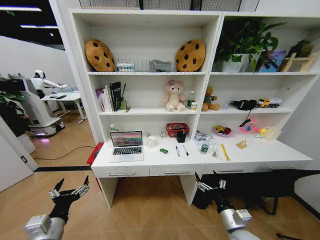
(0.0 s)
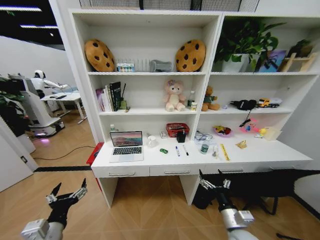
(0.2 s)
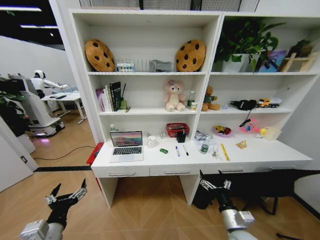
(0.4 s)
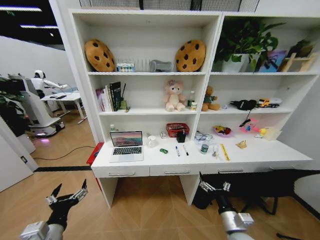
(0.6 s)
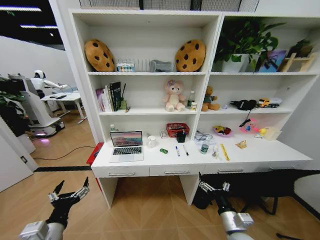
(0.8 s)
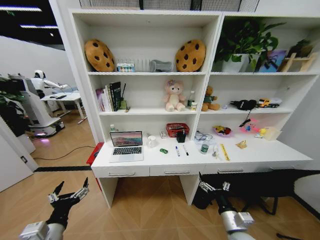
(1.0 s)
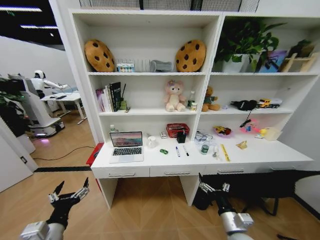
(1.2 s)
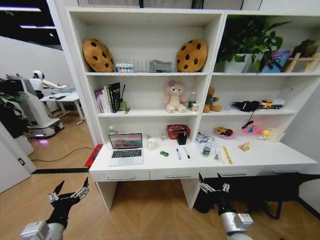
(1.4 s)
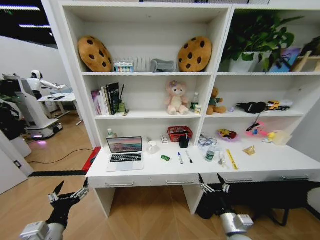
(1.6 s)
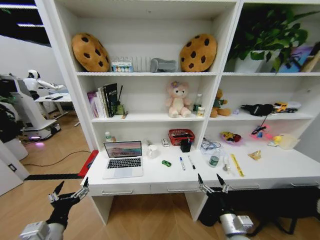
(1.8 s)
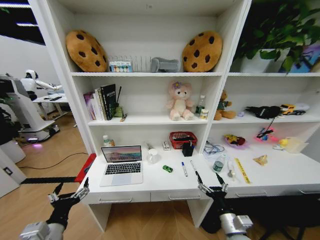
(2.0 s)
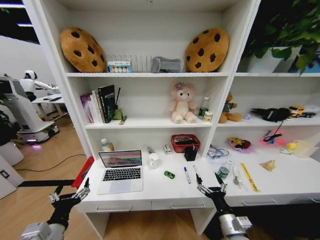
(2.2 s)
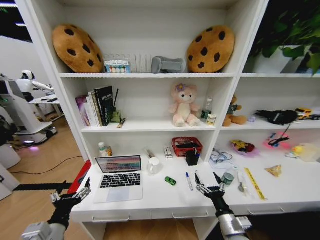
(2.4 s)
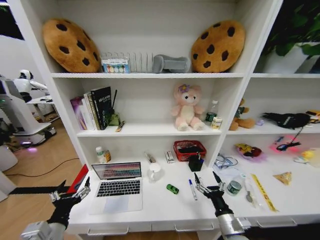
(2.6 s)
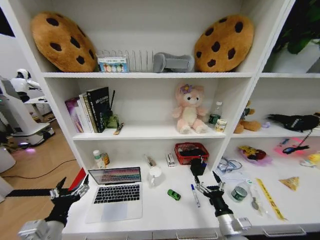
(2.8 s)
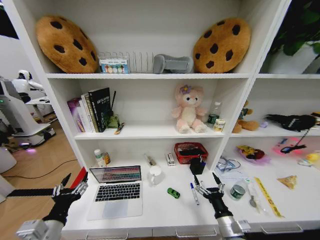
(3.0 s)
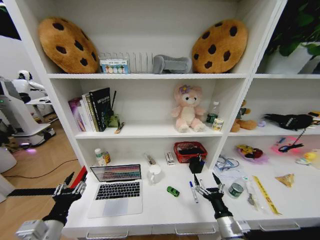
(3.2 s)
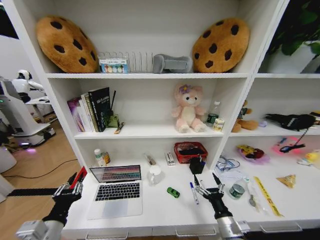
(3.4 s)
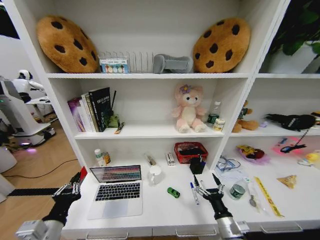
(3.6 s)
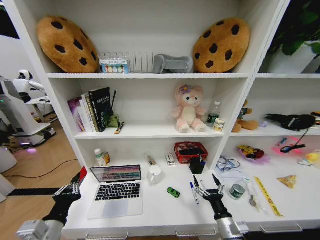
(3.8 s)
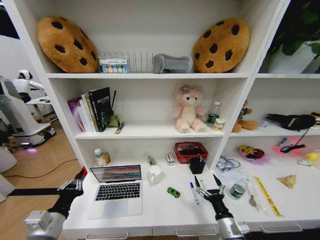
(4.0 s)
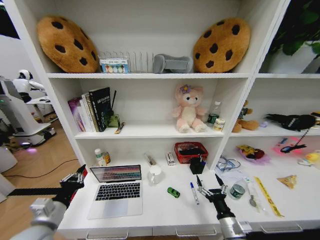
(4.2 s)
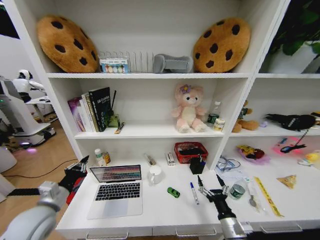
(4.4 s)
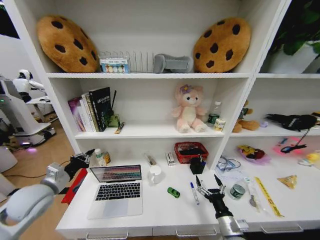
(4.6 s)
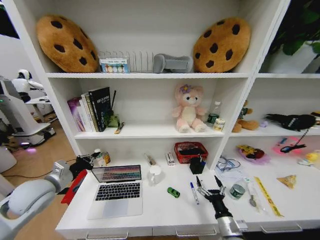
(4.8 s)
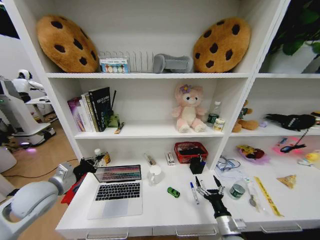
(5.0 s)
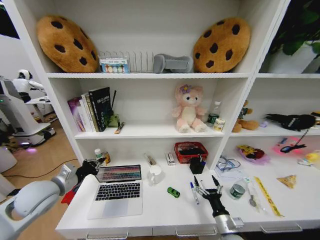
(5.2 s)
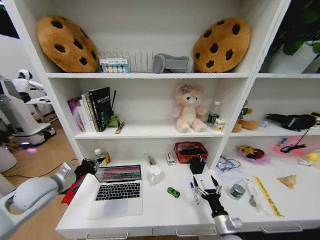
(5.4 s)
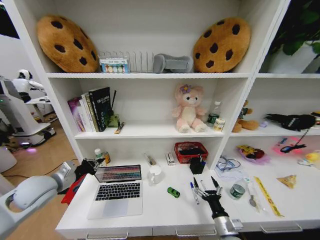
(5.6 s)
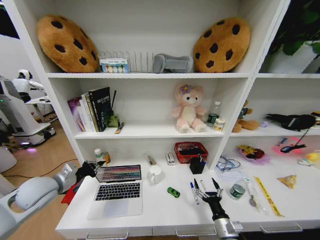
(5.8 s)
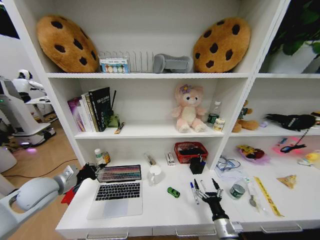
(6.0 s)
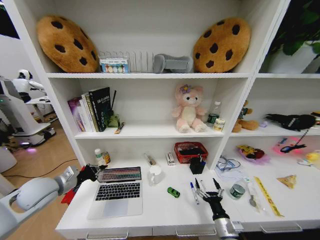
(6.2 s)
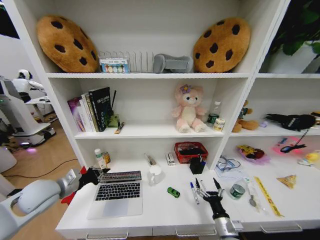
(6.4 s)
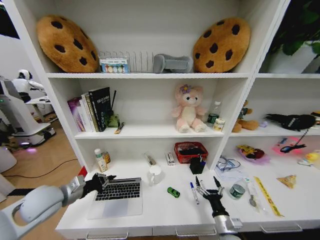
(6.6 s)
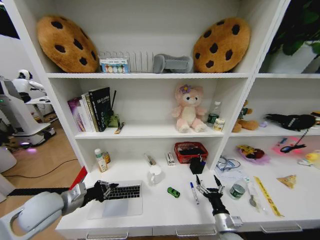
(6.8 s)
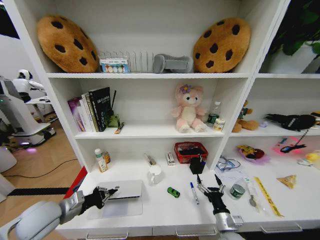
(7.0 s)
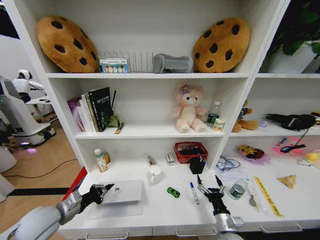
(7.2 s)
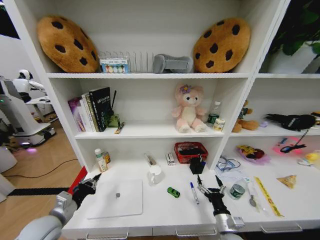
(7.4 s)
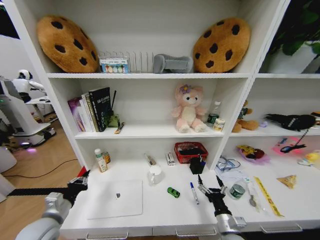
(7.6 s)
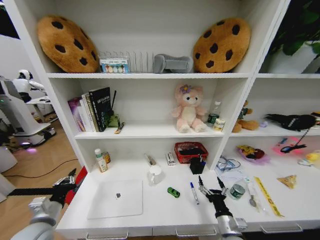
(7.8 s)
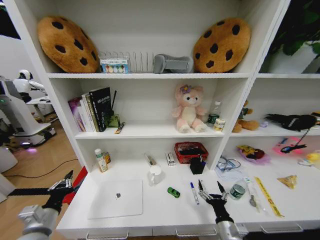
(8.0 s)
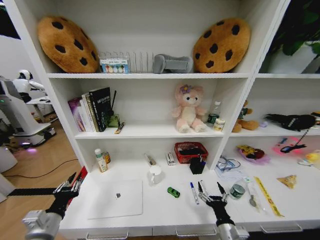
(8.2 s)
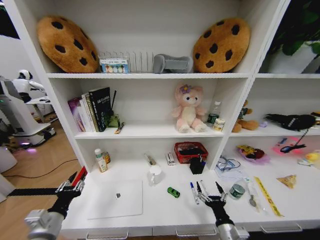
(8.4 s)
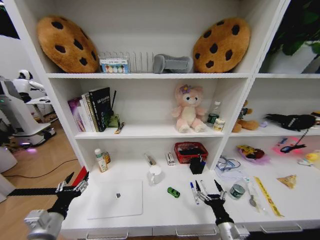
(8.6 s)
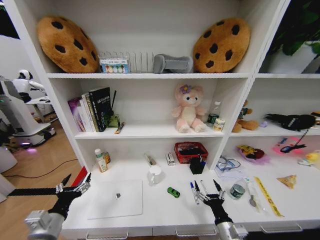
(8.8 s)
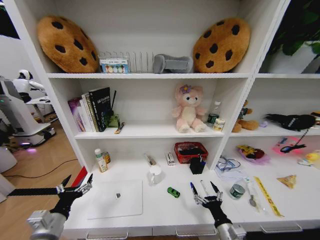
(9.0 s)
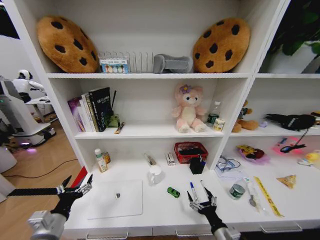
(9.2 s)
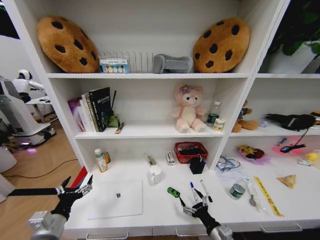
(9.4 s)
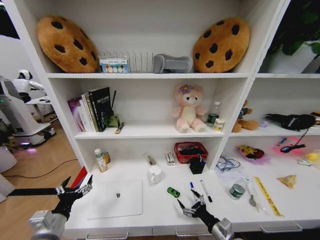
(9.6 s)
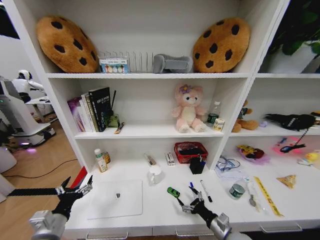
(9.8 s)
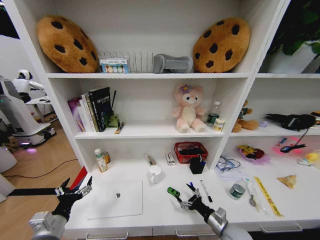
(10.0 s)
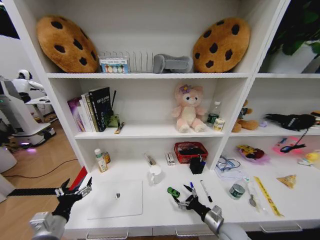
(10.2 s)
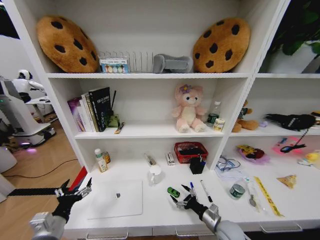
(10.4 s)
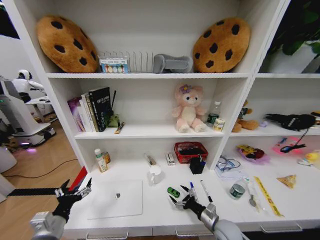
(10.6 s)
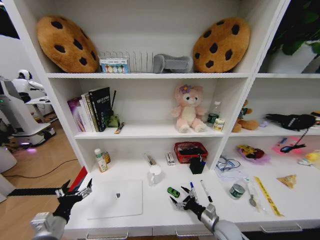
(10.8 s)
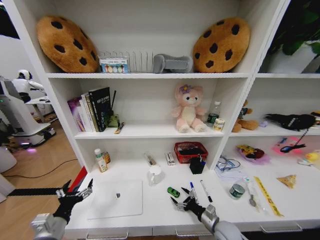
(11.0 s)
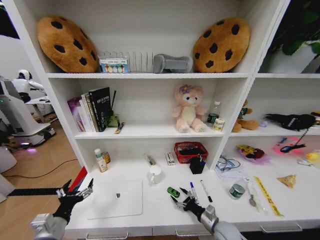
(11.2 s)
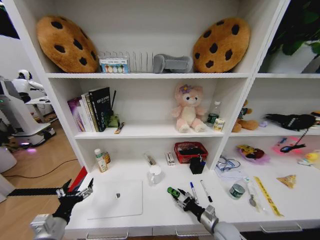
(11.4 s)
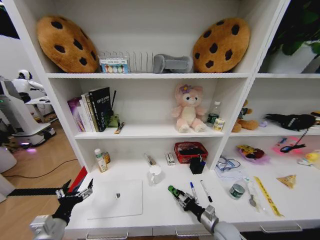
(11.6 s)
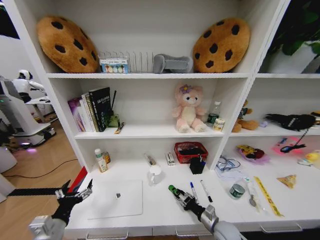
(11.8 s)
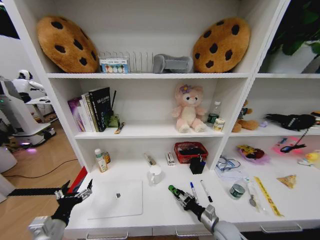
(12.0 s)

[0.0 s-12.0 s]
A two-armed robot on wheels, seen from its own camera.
Task of the whole recording: Organize the objects on the table.
3.0 to 4.4 s: The left gripper travels forward and to the left by about 10 cm, and closes.
4.4 to 6.0 s: The left gripper is displaced forward by about 5 cm.
6.0 to 7.6 s: The left gripper heads backward and downward, covering approximately 15 cm.
7.6 to 9.0 s: The left gripper is displaced backward by about 5 cm, and opens up.
9.0 to 10.4 s: The right gripper is displaced forward by about 10 cm.
10.4 to 12.0 s: The right gripper closes.

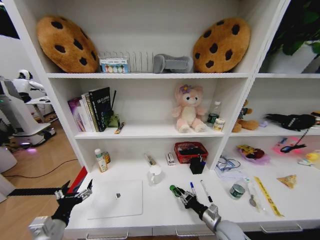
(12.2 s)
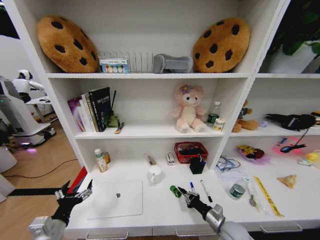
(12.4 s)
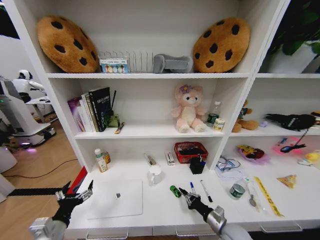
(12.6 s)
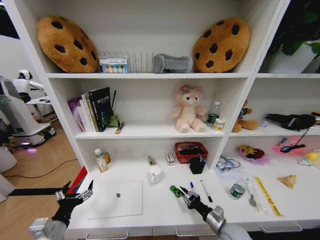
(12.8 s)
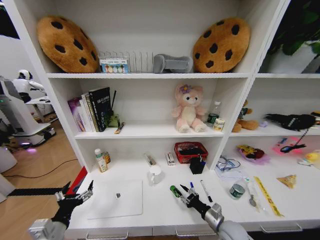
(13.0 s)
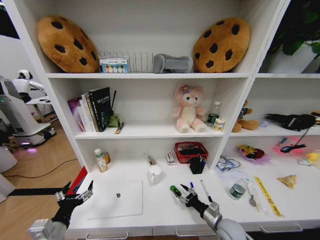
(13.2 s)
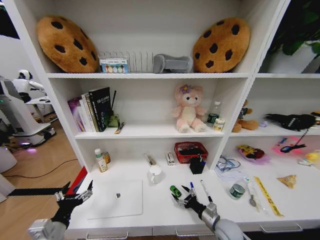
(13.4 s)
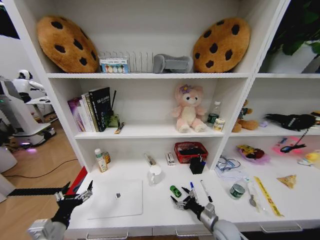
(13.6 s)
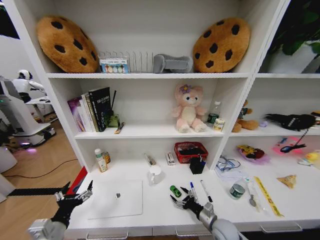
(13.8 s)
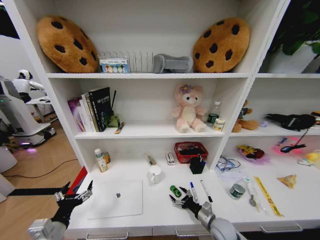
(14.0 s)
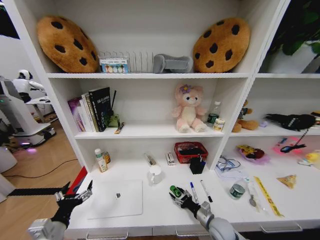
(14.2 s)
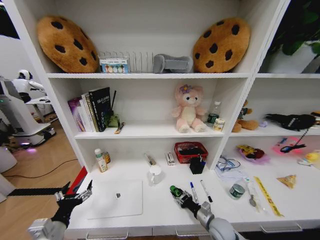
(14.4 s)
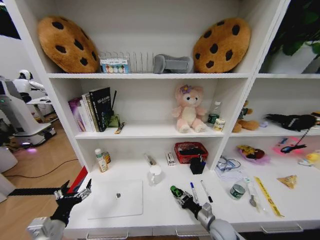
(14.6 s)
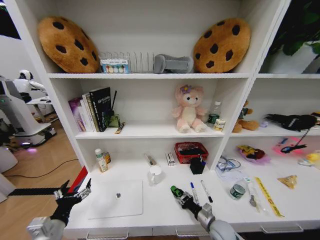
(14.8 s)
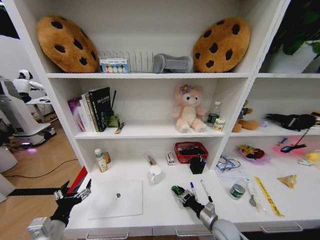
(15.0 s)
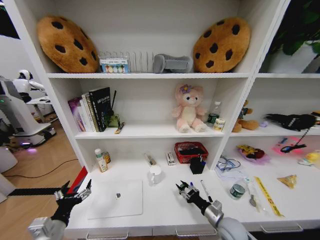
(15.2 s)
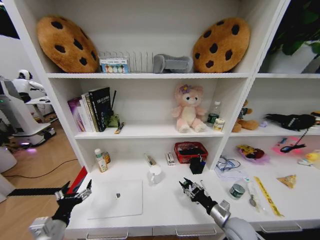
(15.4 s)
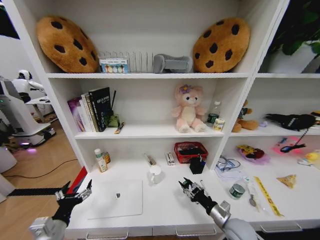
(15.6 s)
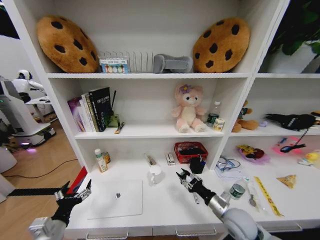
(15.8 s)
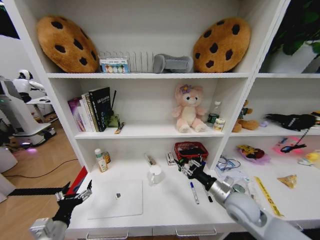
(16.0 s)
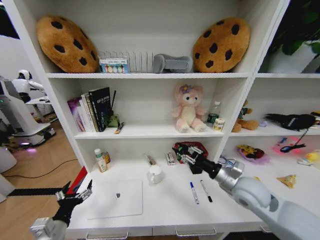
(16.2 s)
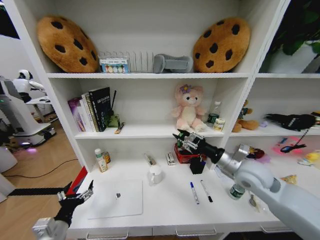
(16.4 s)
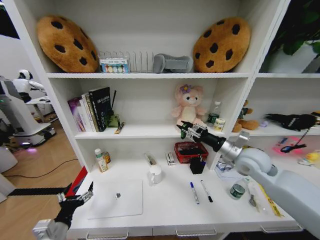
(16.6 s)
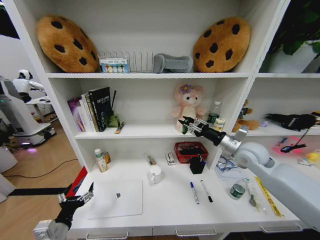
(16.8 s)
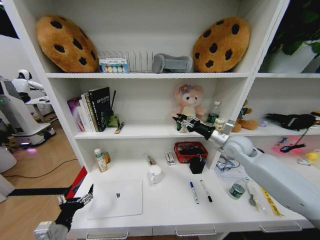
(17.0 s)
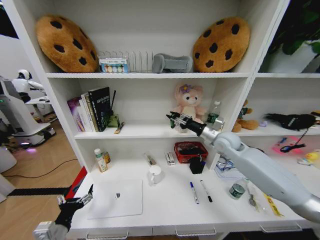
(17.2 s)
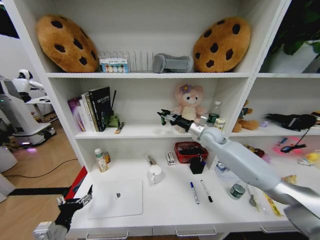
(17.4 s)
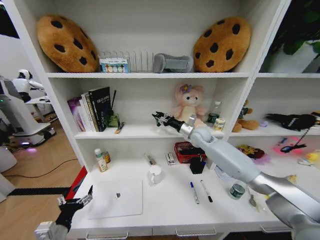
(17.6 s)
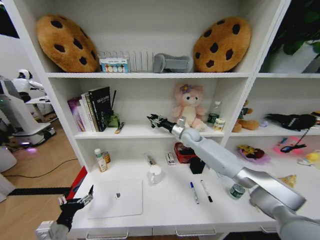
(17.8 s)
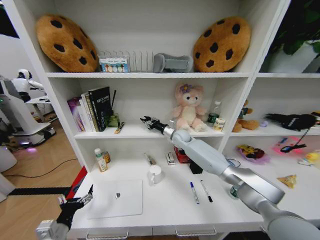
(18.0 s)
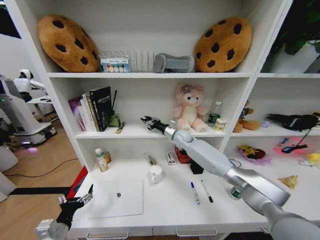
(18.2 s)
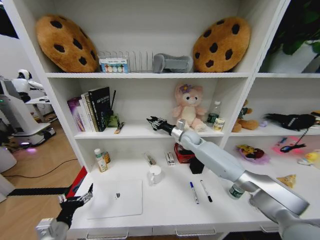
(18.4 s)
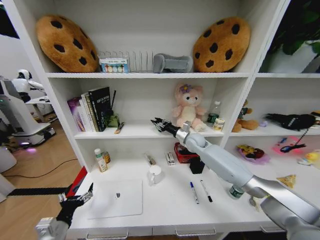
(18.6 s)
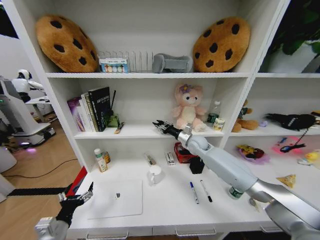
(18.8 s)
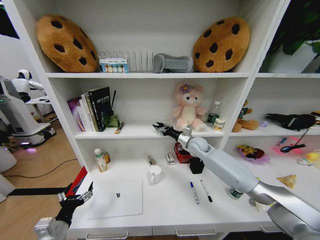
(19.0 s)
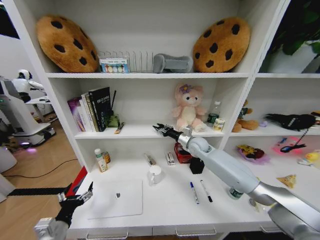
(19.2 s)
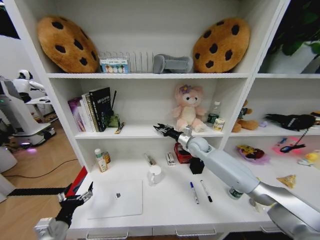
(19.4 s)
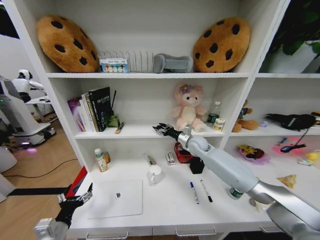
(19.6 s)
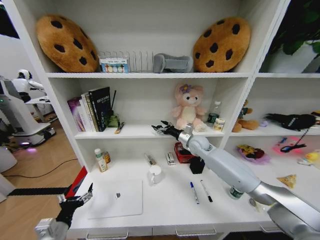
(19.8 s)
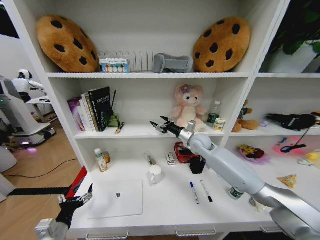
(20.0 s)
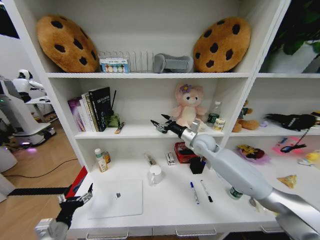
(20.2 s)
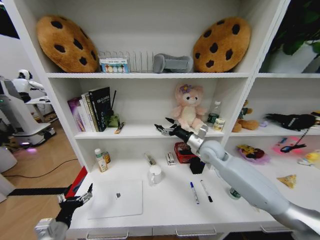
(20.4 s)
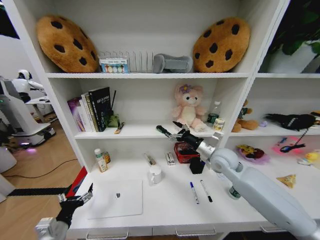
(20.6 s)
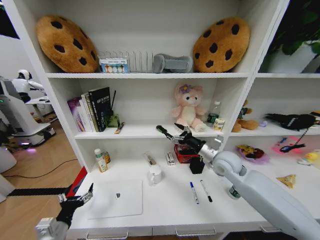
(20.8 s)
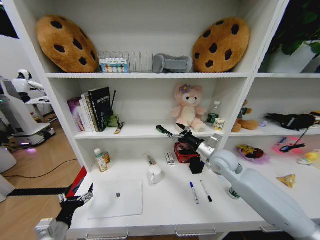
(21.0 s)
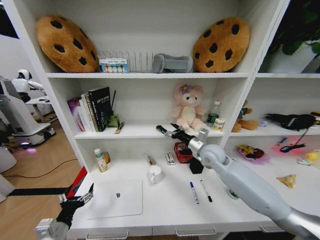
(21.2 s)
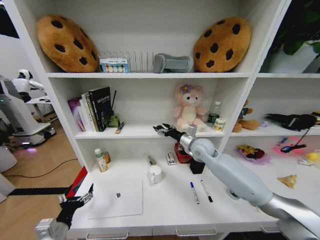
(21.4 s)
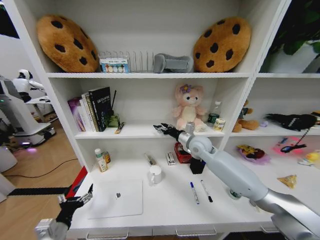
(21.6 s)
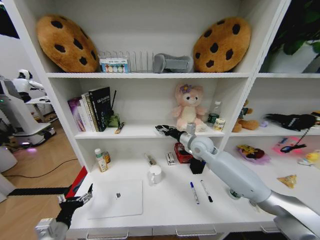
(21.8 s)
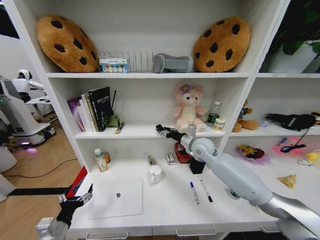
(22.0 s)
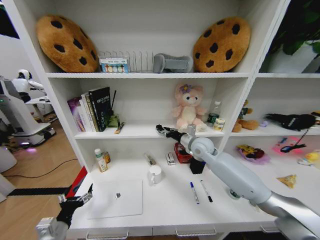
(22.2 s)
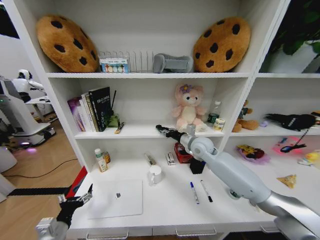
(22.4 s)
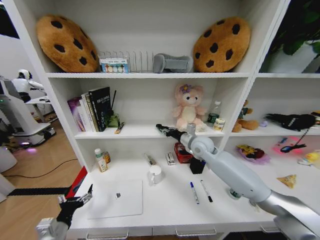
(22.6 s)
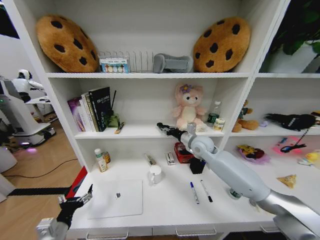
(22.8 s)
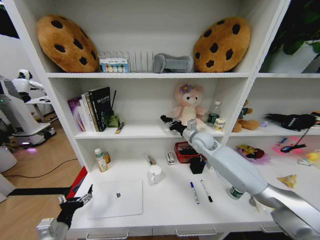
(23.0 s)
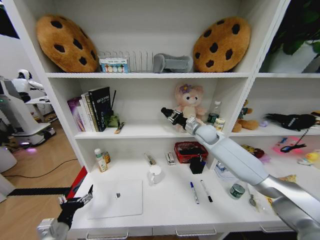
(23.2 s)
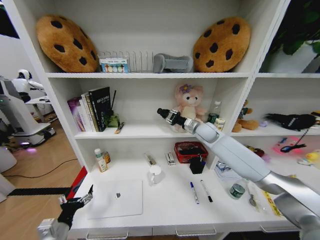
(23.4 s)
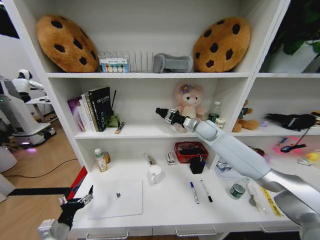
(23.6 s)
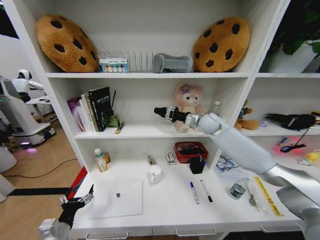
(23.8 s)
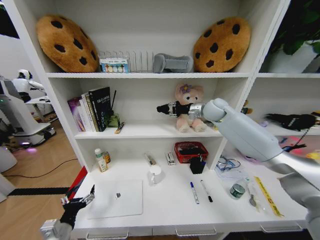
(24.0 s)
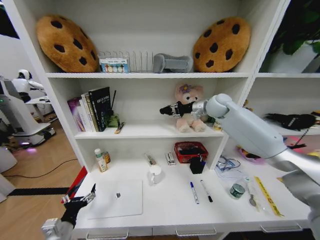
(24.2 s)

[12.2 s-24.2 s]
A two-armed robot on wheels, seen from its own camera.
Task of the whole recording: Organize the objects on the table.
12.2 to 13.8 s: The right gripper opens its fingers.
13.8 to 15.2 s: The right gripper closes up.
15.2 to 16.6 s: The right gripper goes about 30 cm upward and forward.
16.6 to 18.2 s: The right gripper goes approximately 25 cm forward and to the left.
18.2 to 19.8 s: The right gripper moves backward and to the right, some 10 cm, and opens up.
19.8 to 21.2 s: The right gripper travels backward by some 10 cm.
21.2 to 22.6 s: The right gripper changes place by approximately 5 cm, and closes.
22.6 to 24.2 s: The right gripper is displaced upward and forward by some 20 cm.
